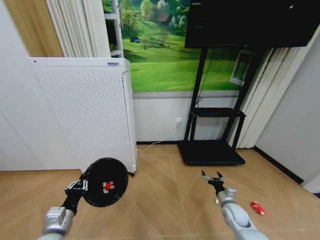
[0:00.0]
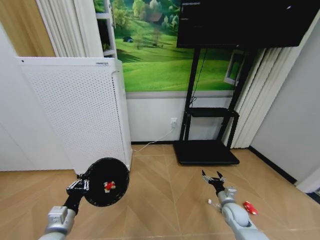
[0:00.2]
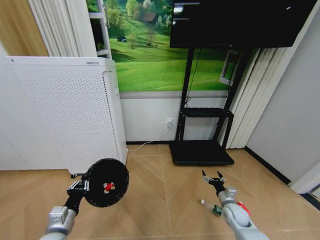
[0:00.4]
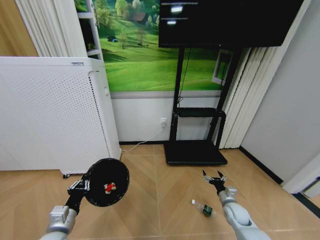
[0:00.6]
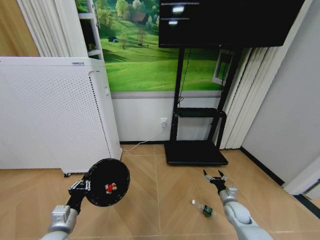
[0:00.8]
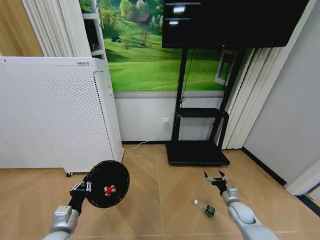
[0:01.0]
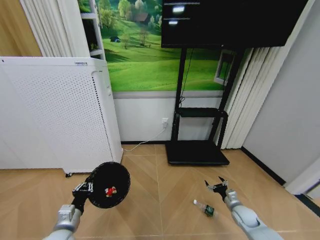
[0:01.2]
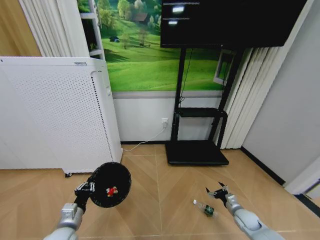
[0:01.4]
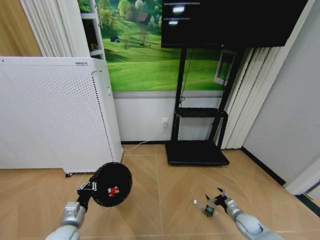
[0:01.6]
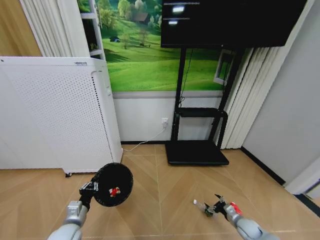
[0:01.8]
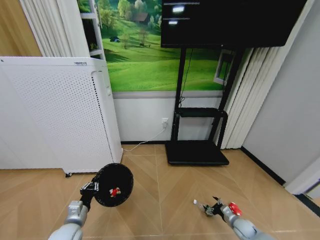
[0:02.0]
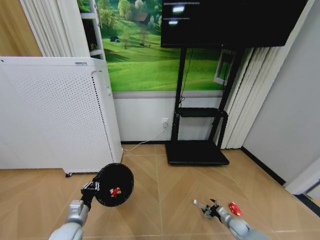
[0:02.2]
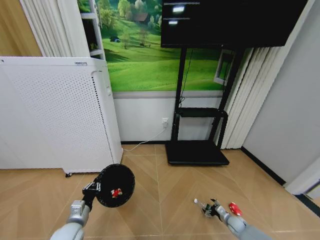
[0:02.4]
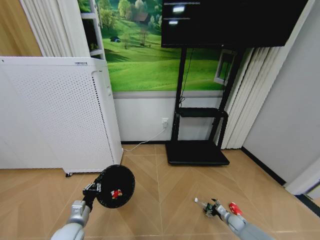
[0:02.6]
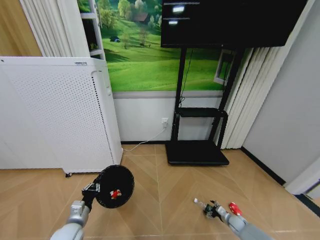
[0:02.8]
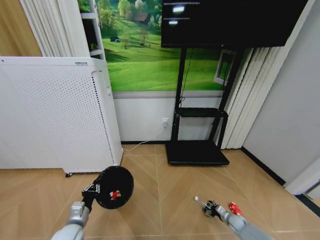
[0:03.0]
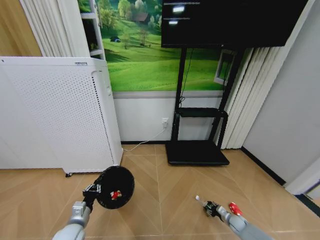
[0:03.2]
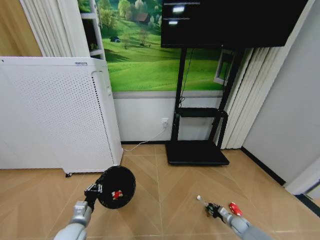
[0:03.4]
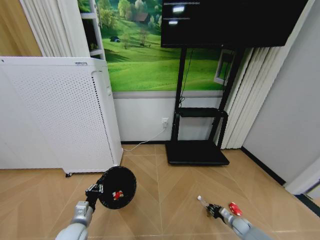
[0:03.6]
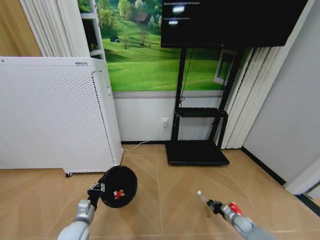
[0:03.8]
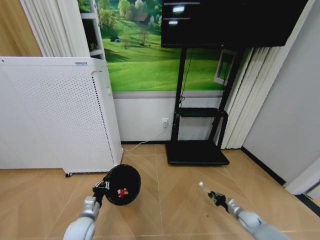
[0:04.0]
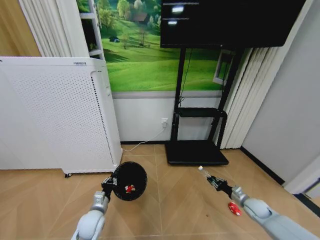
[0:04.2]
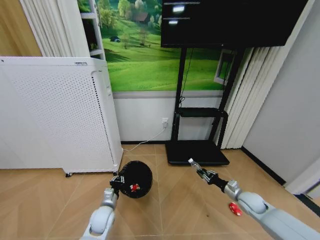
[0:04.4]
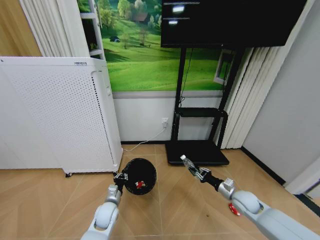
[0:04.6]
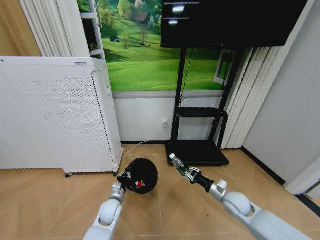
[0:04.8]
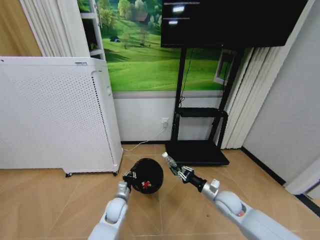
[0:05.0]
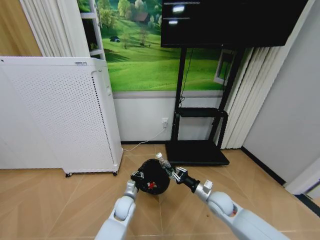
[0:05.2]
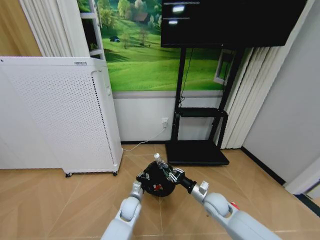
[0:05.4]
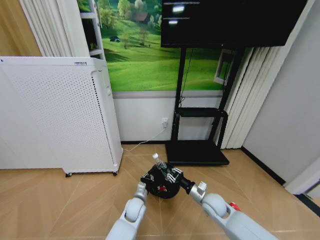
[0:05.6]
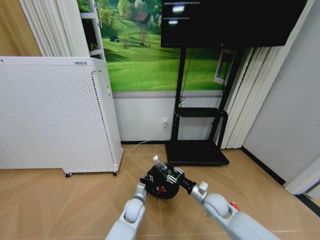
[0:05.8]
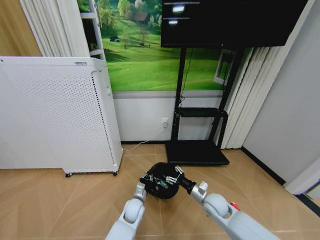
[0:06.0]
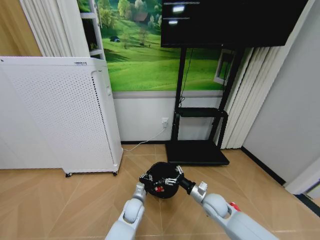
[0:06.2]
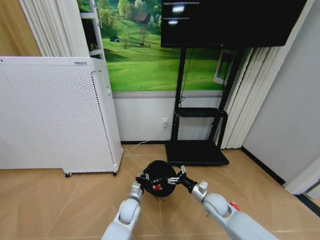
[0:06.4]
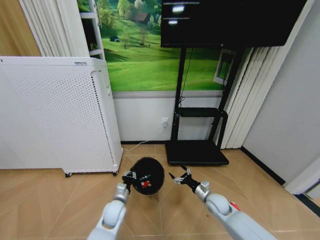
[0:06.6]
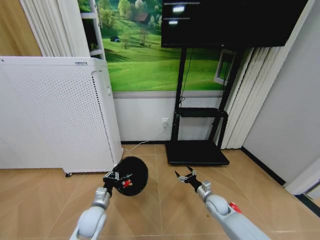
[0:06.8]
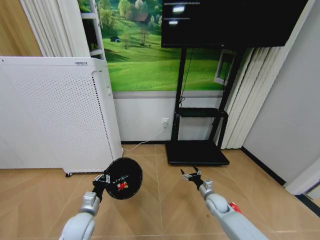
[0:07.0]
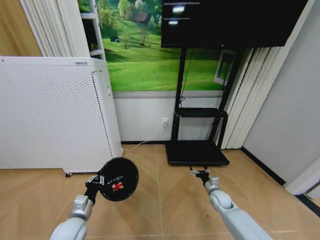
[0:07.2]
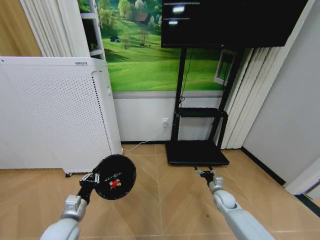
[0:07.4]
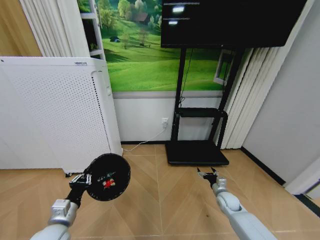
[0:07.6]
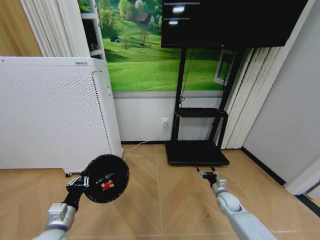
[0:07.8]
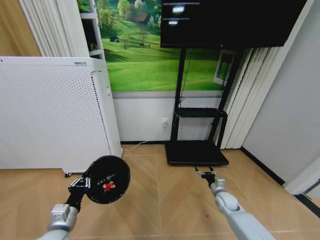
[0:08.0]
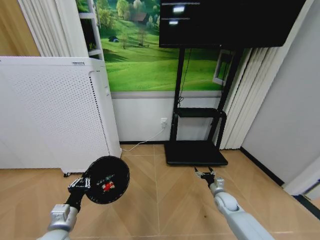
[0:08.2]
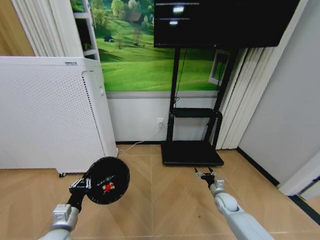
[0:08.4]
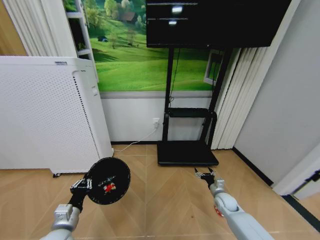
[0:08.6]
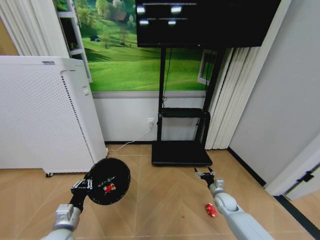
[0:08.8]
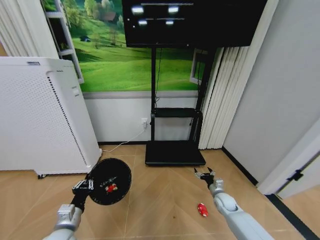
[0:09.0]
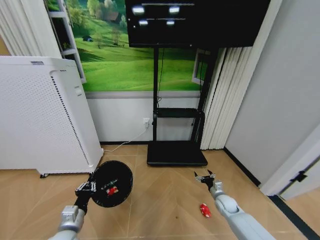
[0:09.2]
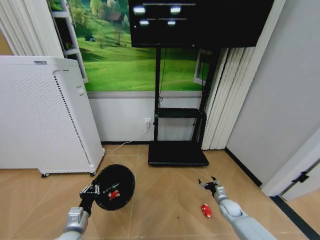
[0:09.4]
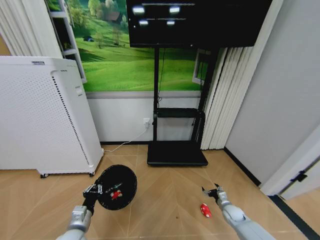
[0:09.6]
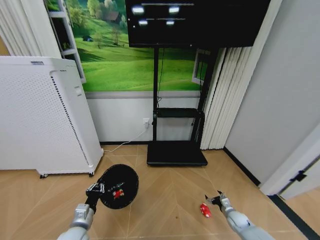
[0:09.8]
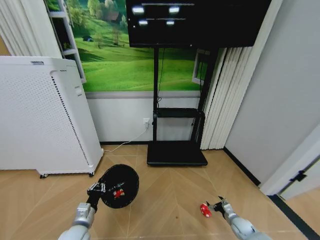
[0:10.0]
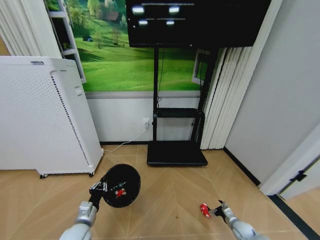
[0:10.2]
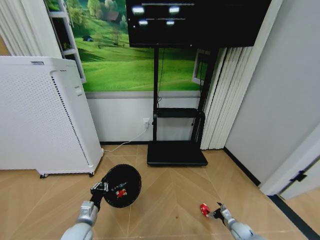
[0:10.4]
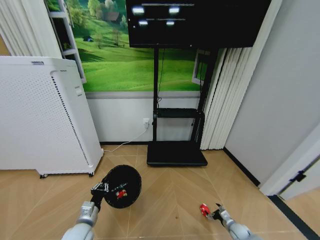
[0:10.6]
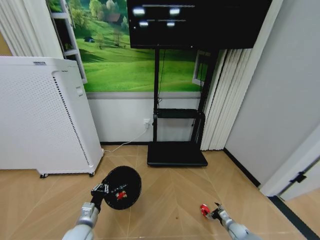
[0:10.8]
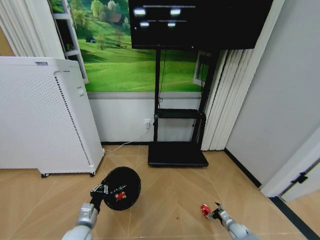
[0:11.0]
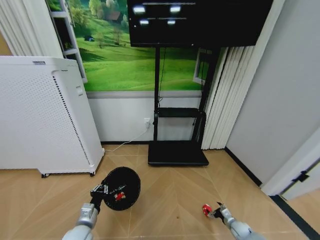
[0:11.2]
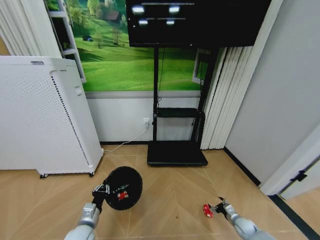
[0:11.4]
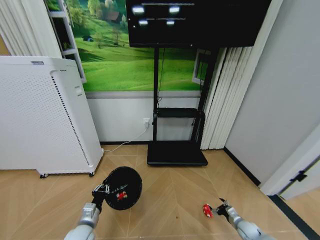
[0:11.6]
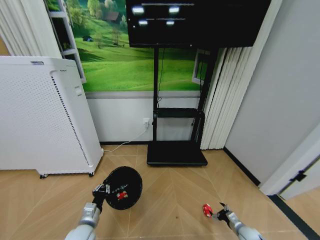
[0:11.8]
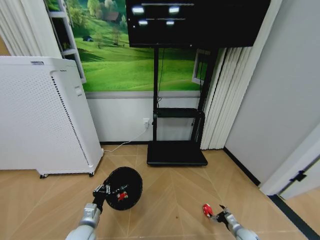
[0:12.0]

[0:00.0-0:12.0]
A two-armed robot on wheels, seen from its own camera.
Task of the whole recording: Pick up the trash bin and place the garbage on the floor into it.
0:00.0 to 0:01.6: The left gripper is displaced downward by about 5 cm, while the right gripper shifts some 10 cm to the right and downward.
0:01.6 to 0:03.0: The right gripper is displaced downward by roughly 10 cm.
0:03.0 to 0:04.4: The left gripper is displaced to the right and forward by about 10 cm. Meanwhile the right gripper travels upward by roughly 20 cm, and closes.
0:04.4 to 0:06.0: The right gripper travels to the left by roughly 20 cm, and opens its fingers; the left gripper goes some 15 cm to the right.
0:06.0 to 0:07.6: The left gripper moves to the left, upward and backward, some 30 cm. Meanwhile the right gripper is displaced to the right and downward by approximately 15 cm, and opens.
0:09.0 to 0:10.4: The left gripper heads downward, covering approximately 5 cm, while the right gripper shifts roughly 20 cm downward, backward and to the right.
0:10.4 to 0:12.0: There are only small adjustments of the grippers.

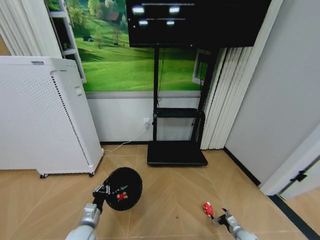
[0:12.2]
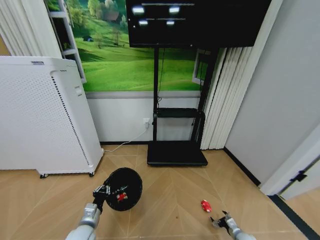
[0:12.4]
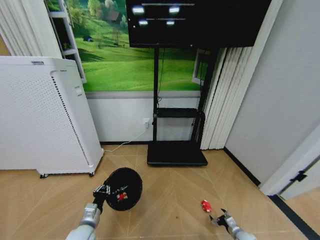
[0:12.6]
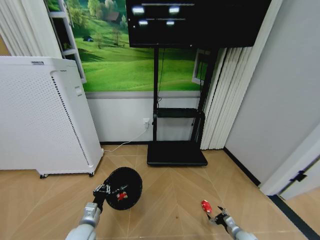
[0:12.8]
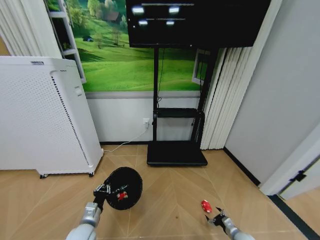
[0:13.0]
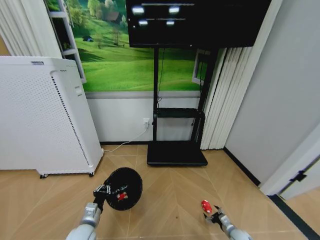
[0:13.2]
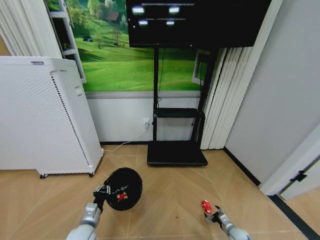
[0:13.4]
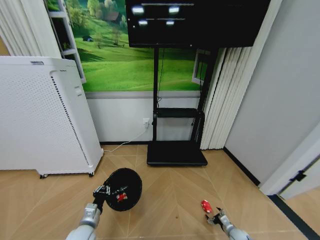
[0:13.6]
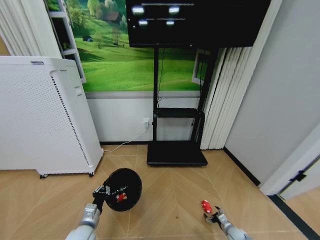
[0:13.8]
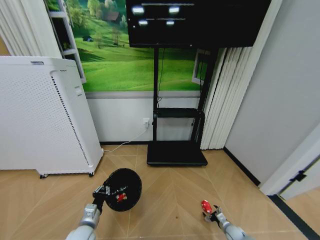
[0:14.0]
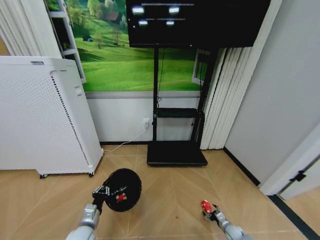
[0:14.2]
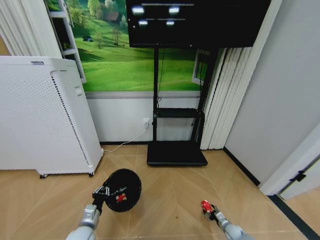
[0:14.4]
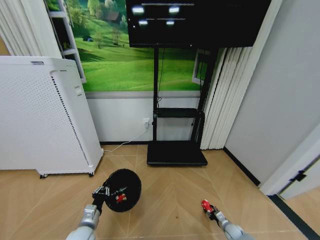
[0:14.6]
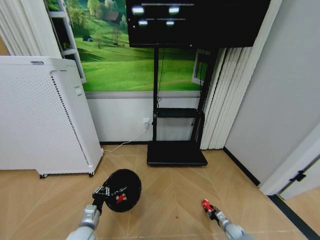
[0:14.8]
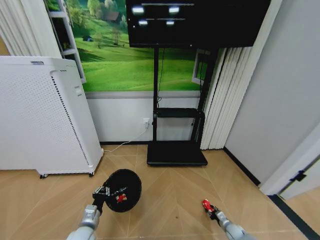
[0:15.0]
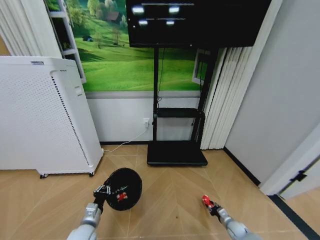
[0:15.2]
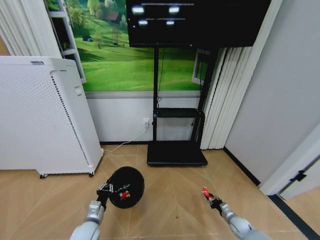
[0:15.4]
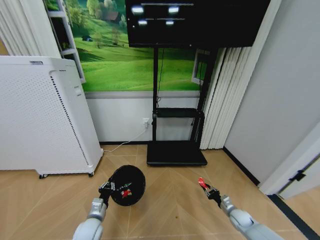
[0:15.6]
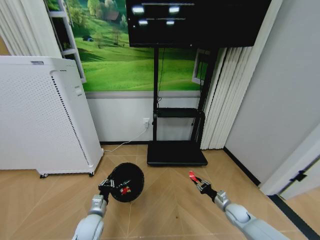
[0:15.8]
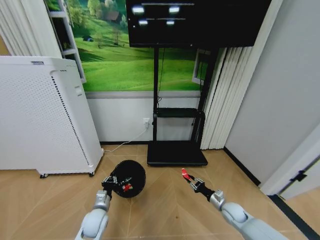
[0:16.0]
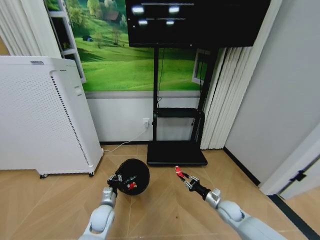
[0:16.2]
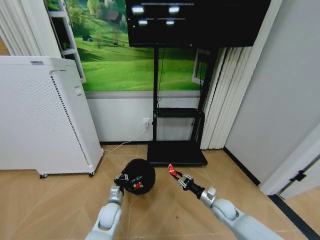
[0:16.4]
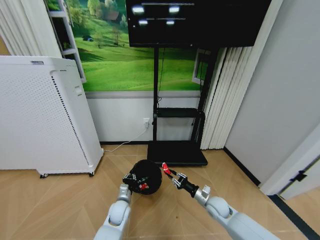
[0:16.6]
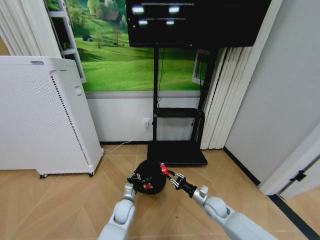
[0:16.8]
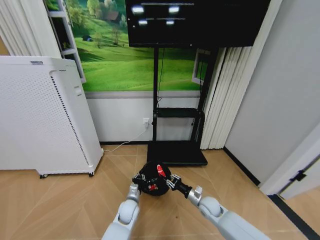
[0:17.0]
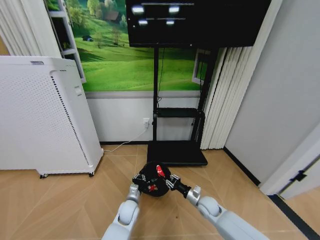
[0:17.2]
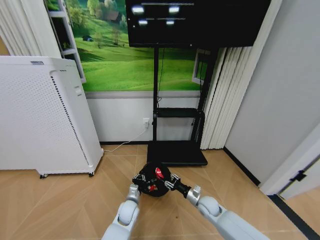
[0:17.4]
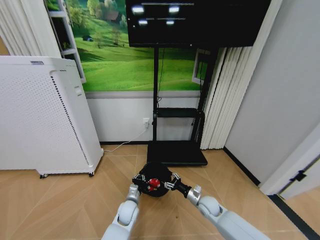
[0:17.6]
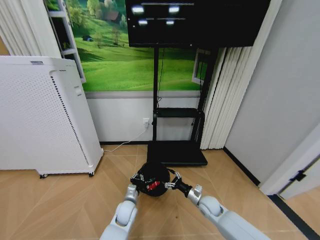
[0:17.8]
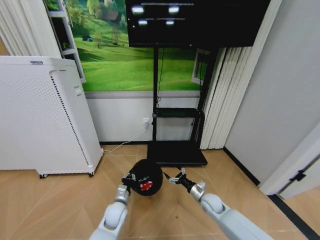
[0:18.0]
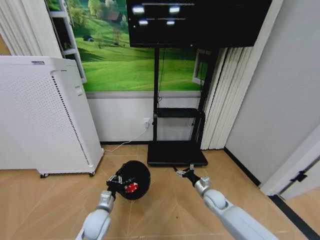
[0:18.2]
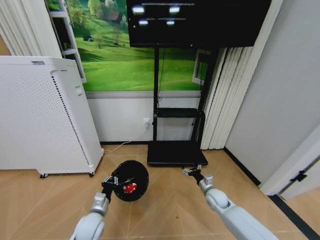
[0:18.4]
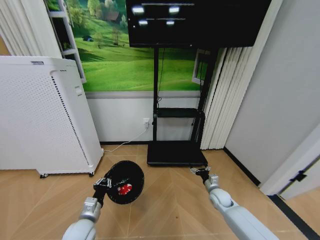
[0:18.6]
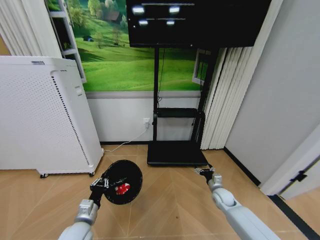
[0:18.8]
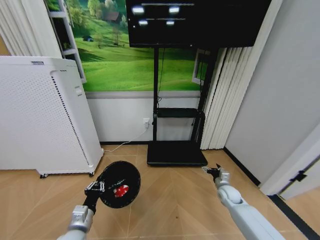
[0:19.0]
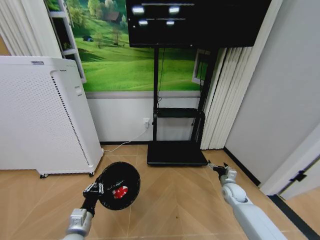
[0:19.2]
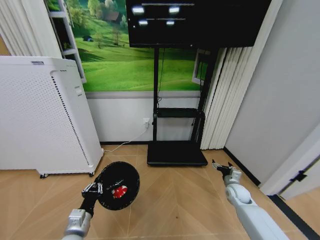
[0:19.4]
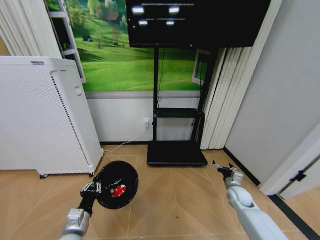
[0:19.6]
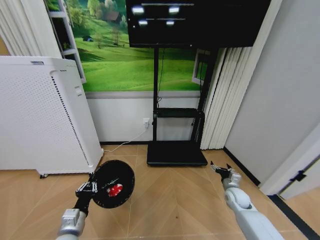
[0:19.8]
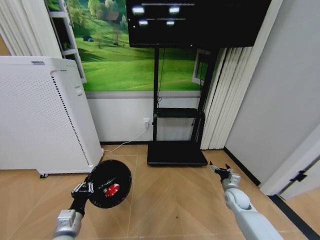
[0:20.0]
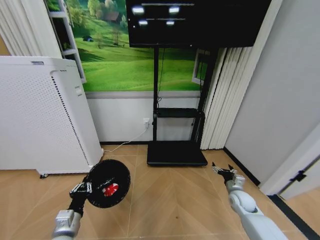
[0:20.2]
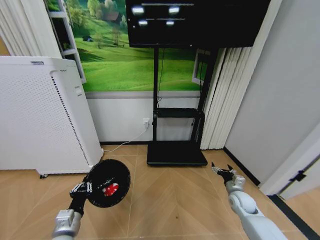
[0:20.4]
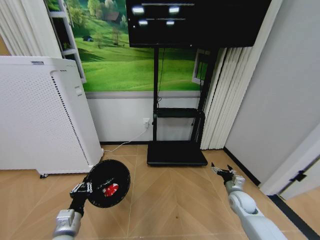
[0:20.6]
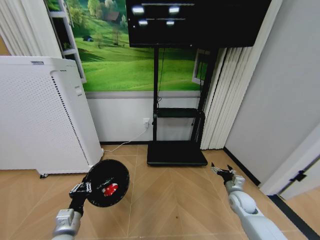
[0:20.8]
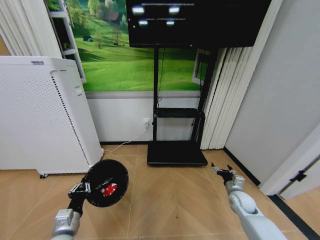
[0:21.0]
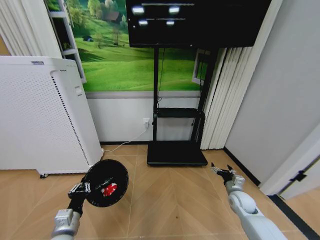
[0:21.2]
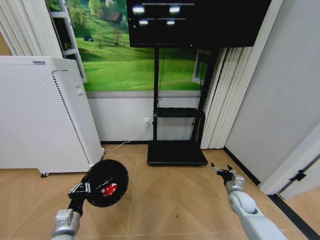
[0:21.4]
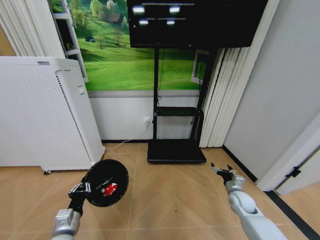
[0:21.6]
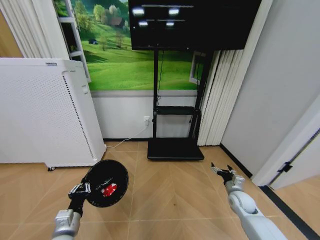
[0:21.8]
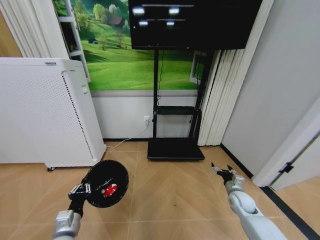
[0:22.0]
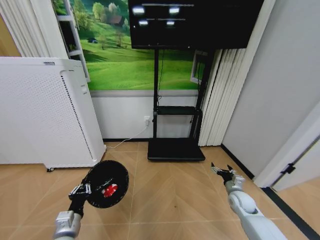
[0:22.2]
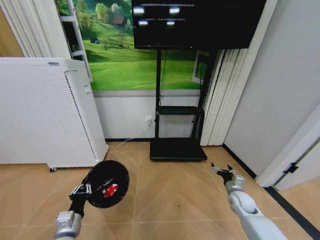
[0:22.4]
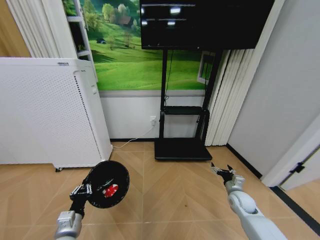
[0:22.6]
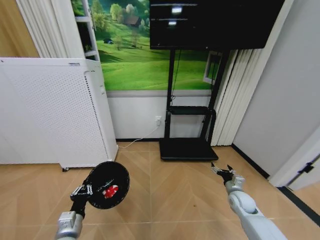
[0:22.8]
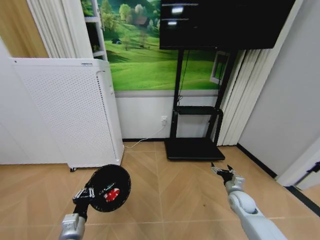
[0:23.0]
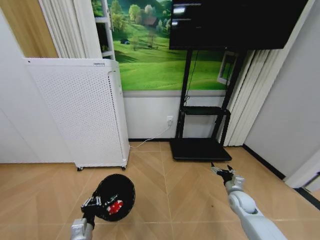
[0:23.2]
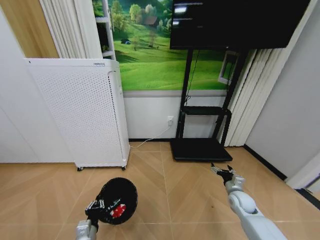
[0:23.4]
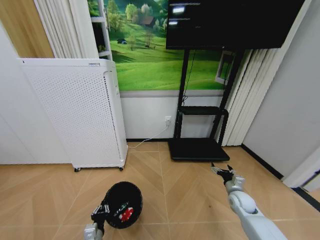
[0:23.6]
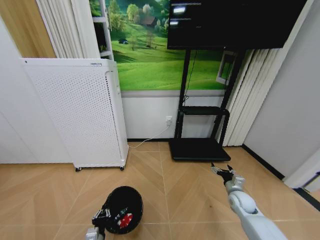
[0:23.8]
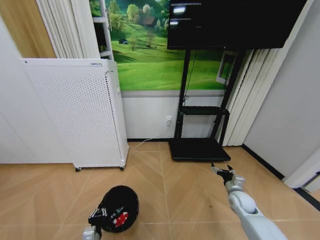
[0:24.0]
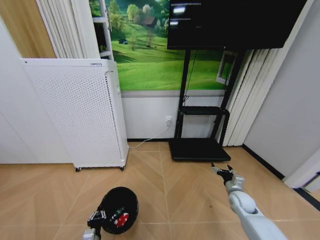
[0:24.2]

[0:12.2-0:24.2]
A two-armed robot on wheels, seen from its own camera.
Task of the whole recording: Pick up the trash bin and place the garbage on the floor into it.
0:12.2 to 0:13.8: The grippers move only a little.
0:13.8 to 0:15.2: The right gripper closes.
0:15.2 to 0:16.6: The left gripper moves to the right and forward, roughly 15 cm; the right gripper is displaced upward and to the left by some 25 cm.
0:16.6 to 0:18.2: The left gripper moves to the left, about 5 cm. Meanwhile the right gripper opens its fingers.
0:18.2 to 0:19.8: The left gripper goes roughly 15 cm backward, upward and to the left. Meanwhile the right gripper shifts some 10 cm to the right.
0:19.8 to 0:21.2: There are only small adjustments of the grippers.
0:22.6 to 0:24.2: The left gripper moves downward, roughly 10 cm.
